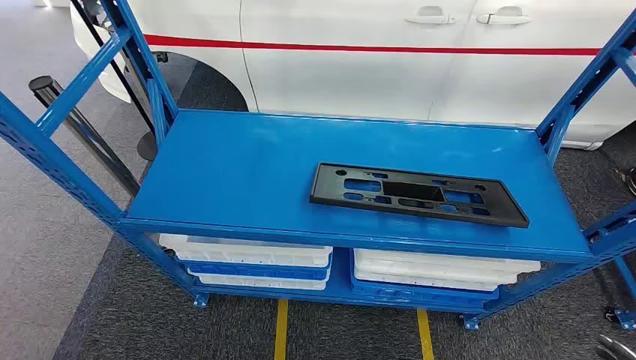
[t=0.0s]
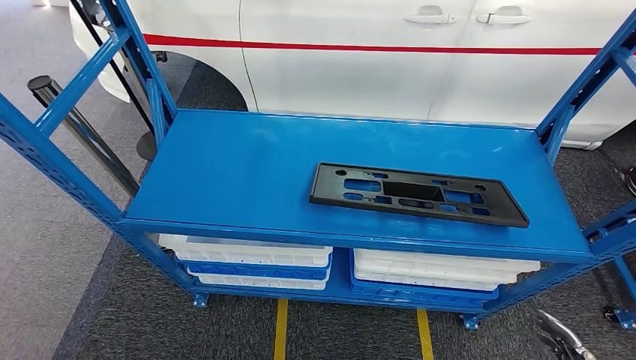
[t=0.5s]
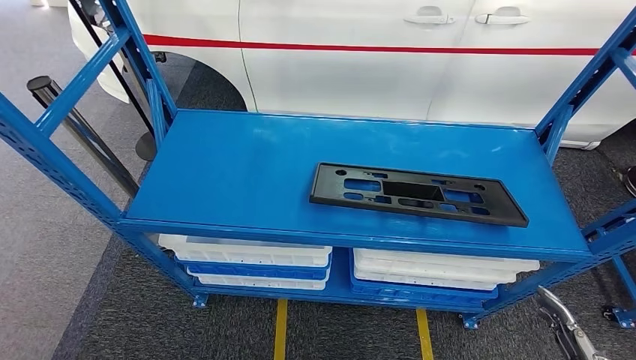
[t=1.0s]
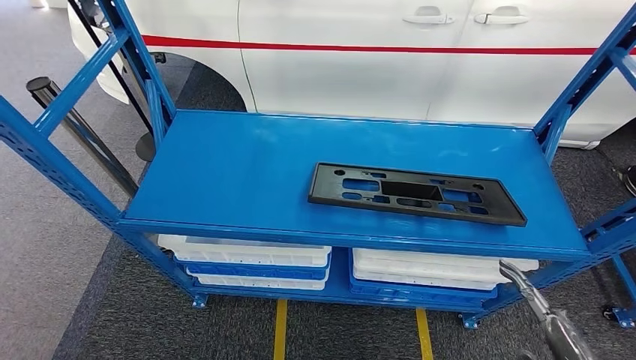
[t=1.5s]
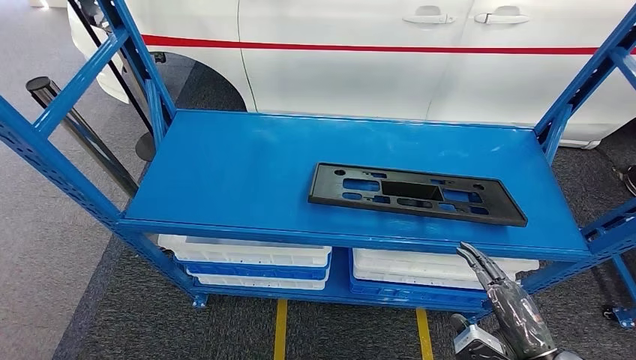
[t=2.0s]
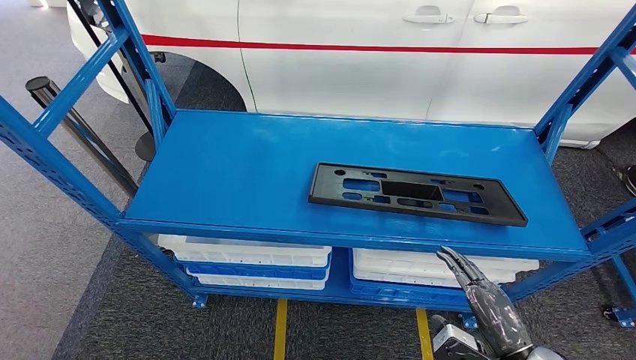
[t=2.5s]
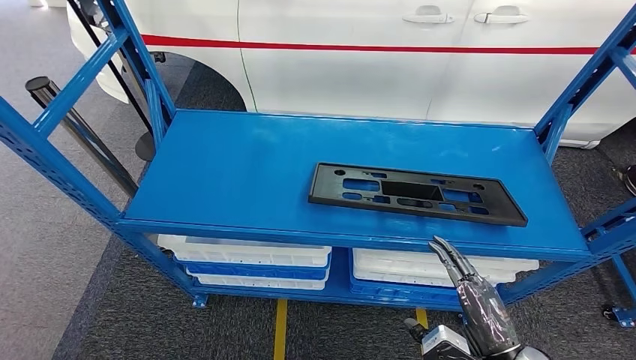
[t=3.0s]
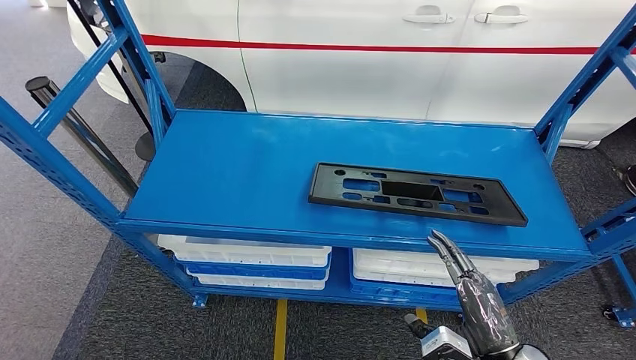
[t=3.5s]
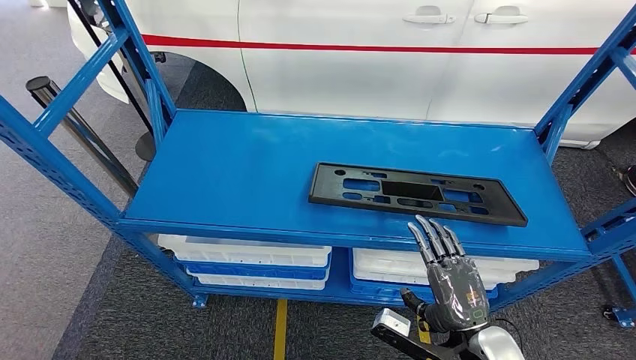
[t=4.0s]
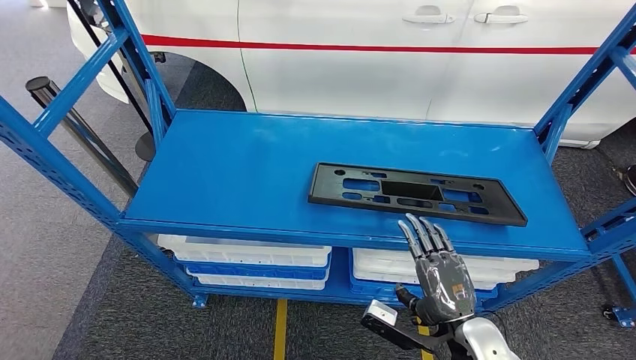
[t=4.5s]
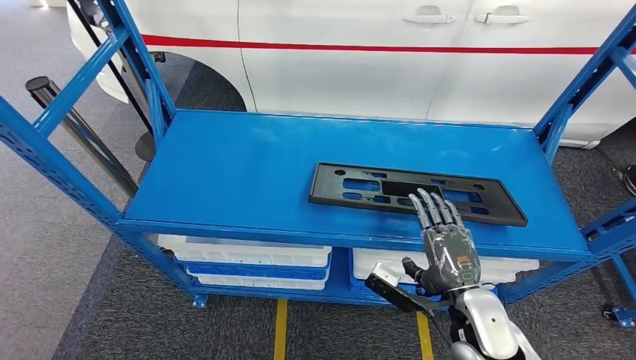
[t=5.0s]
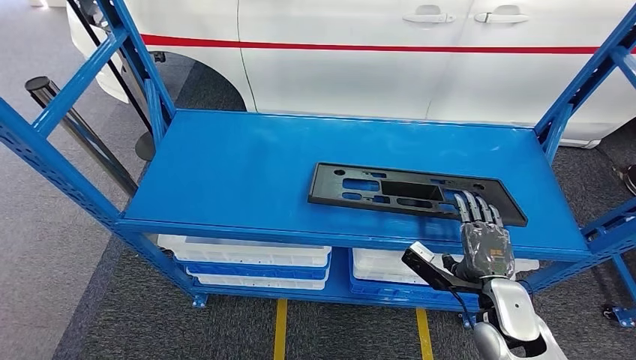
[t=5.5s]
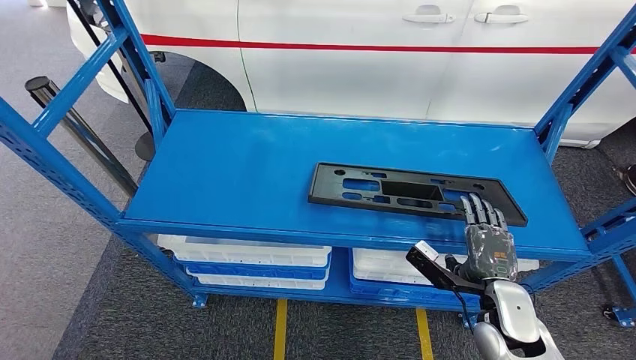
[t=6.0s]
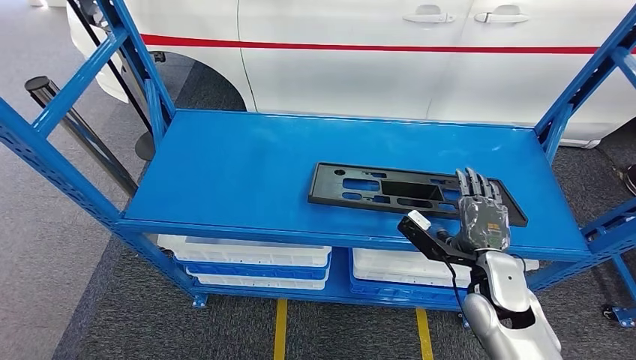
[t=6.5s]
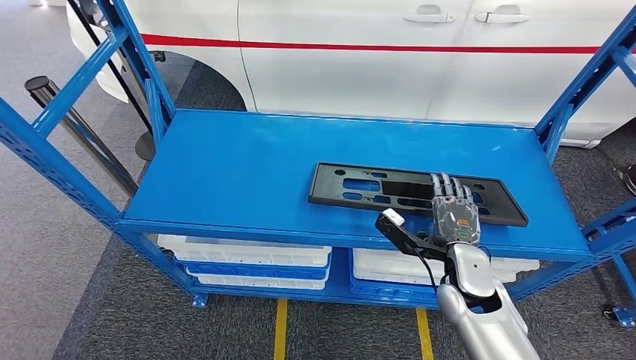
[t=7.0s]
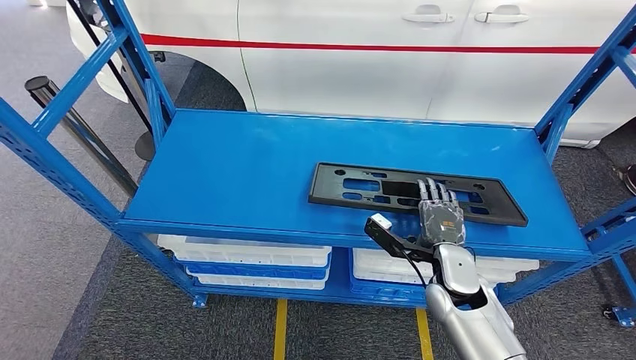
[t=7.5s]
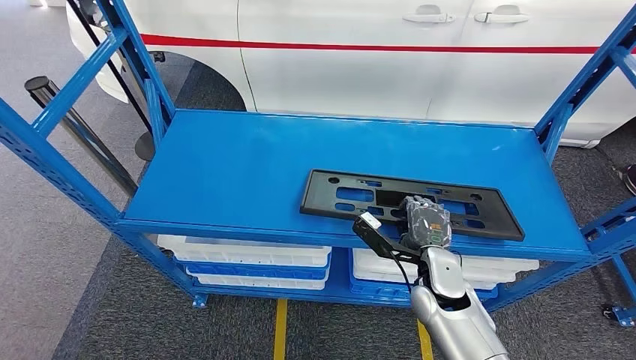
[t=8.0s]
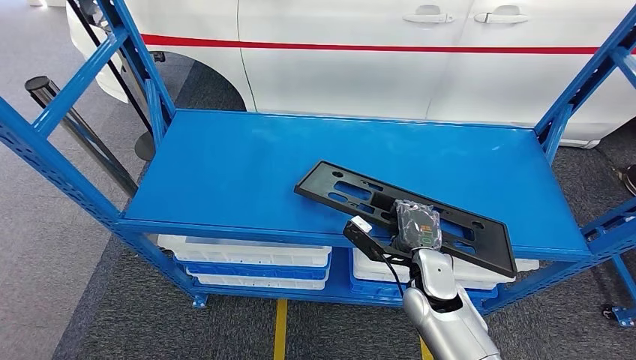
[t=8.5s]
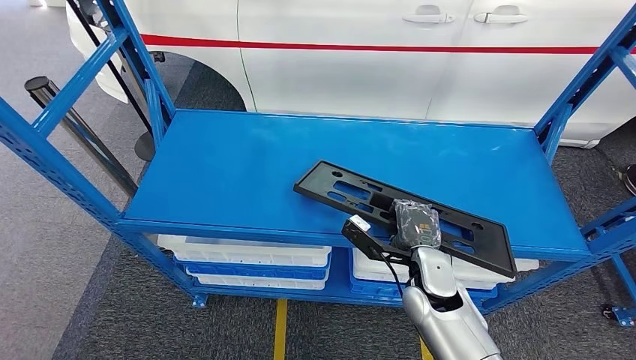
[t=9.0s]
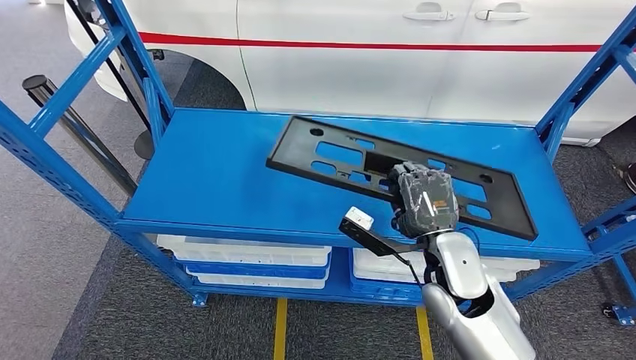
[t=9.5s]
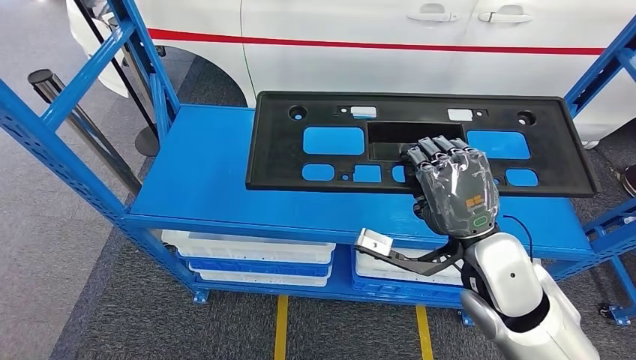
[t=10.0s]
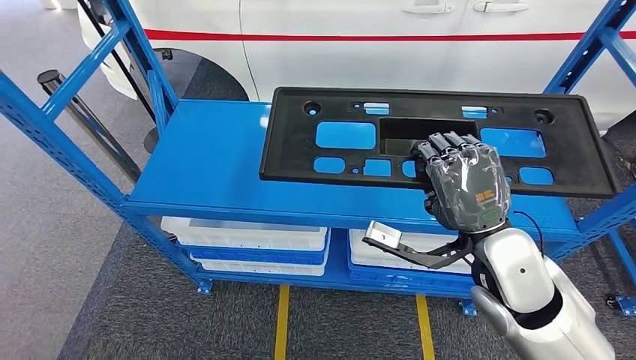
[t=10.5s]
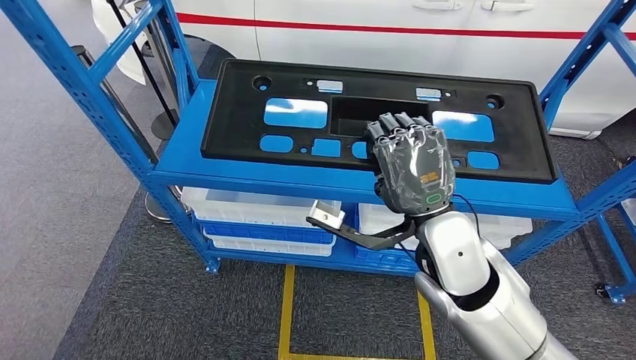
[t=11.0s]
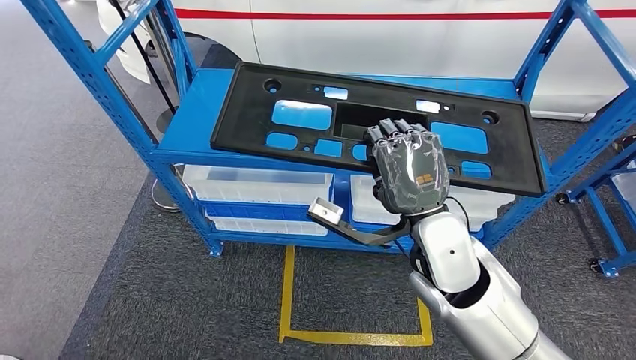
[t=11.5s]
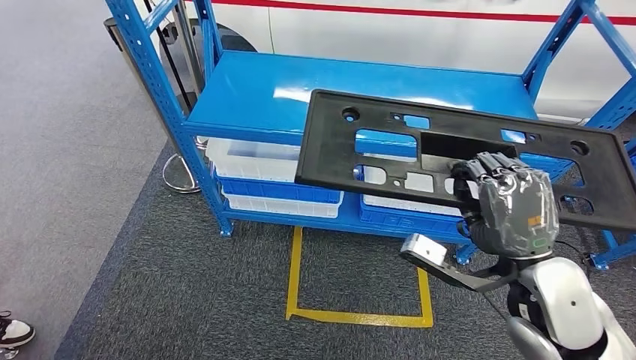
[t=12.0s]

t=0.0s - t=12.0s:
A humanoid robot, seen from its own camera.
Step, t=0.0s - t=10.5s: Pick up the large material from the shelf.
t=2.0s - t=4.0s: The right hand shifts some 10 cm to the left.
t=4.0s - t=6.0s: The right hand shifts some 10 cm forward.
t=6.0s - t=8.0s: The right hand goes some 10 cm to the left.

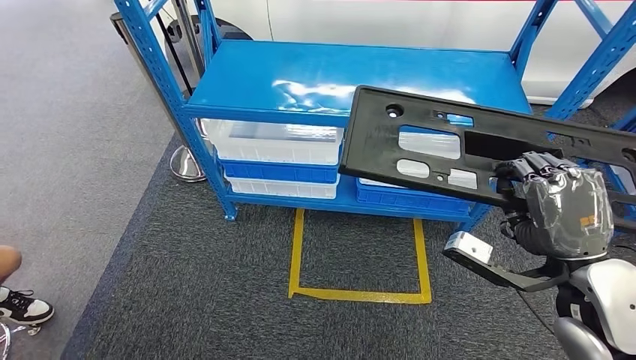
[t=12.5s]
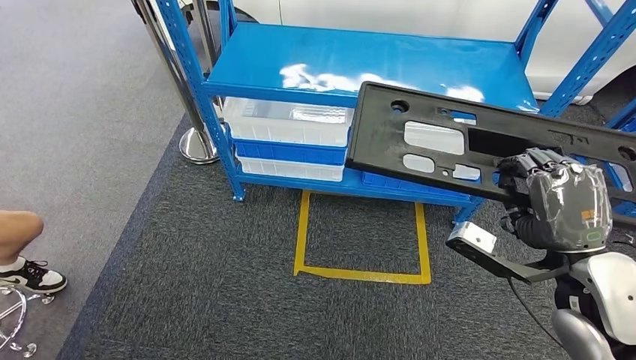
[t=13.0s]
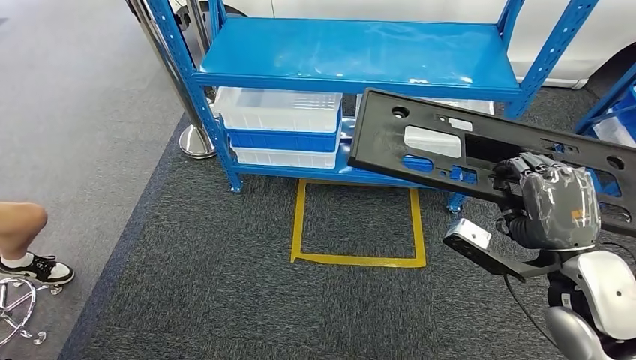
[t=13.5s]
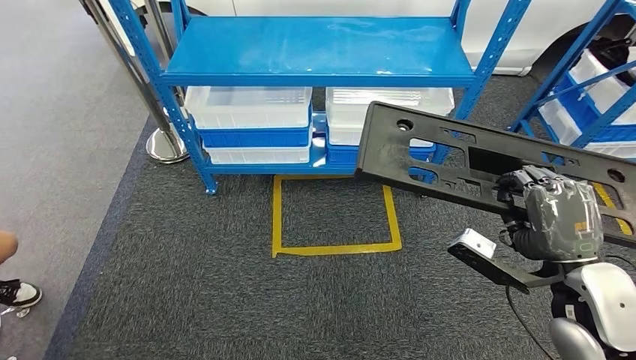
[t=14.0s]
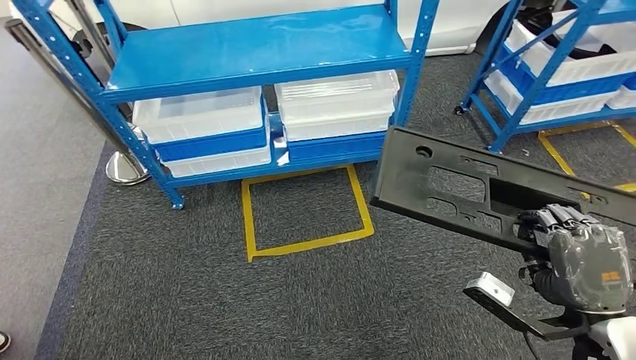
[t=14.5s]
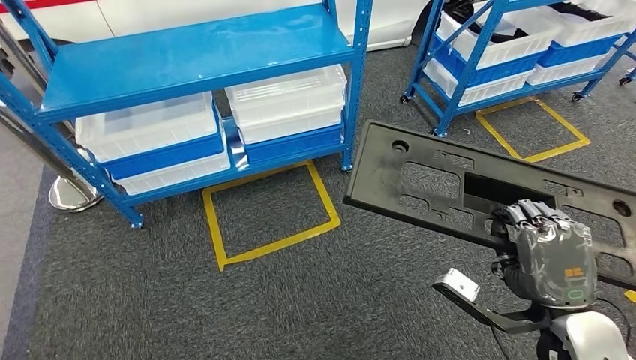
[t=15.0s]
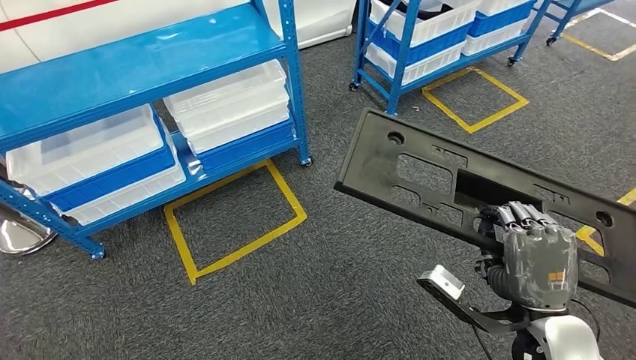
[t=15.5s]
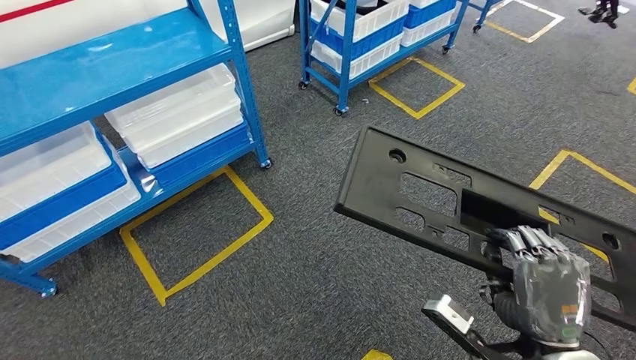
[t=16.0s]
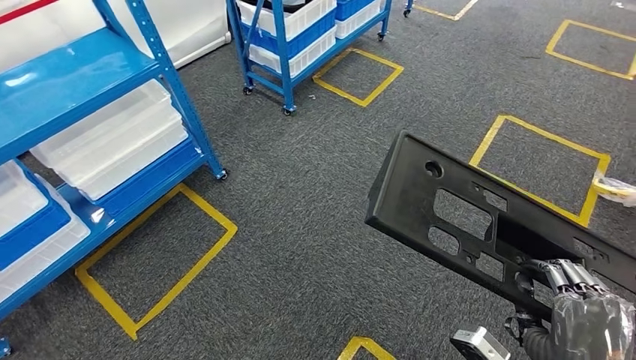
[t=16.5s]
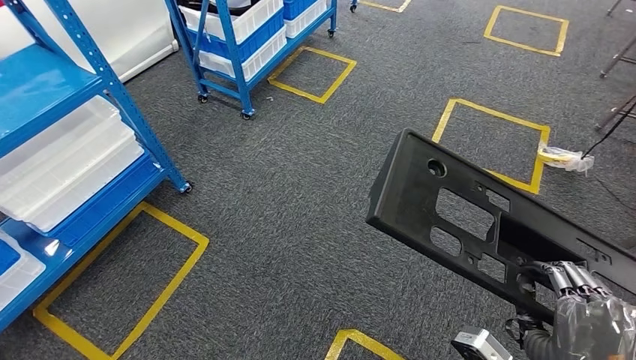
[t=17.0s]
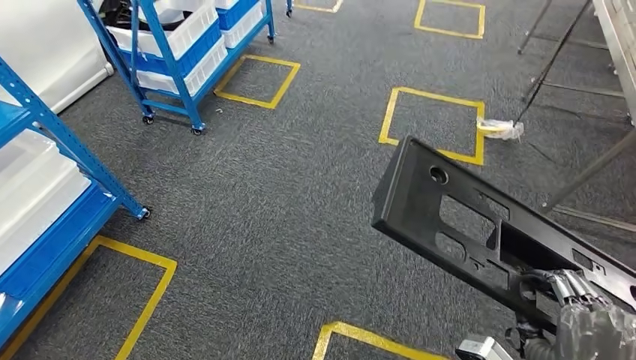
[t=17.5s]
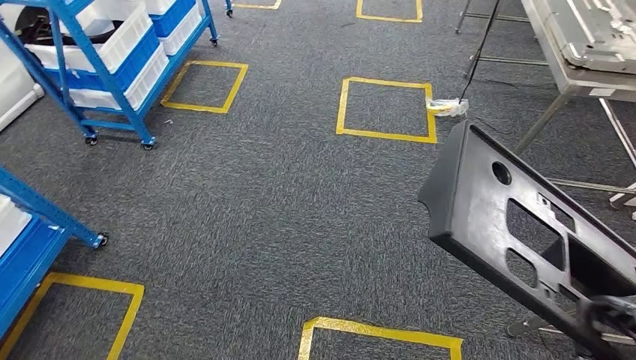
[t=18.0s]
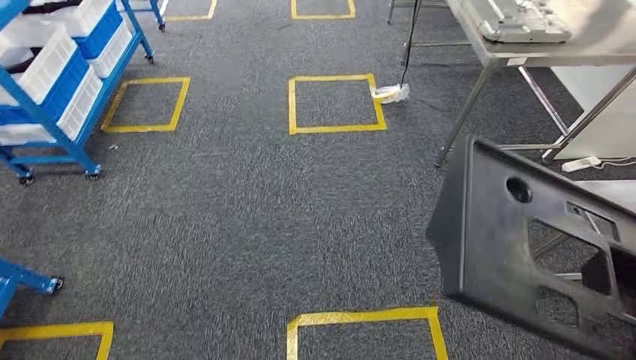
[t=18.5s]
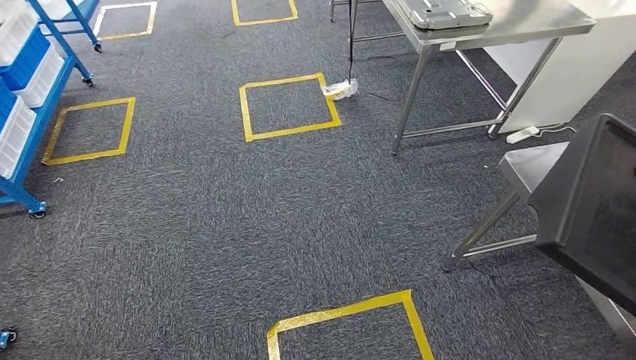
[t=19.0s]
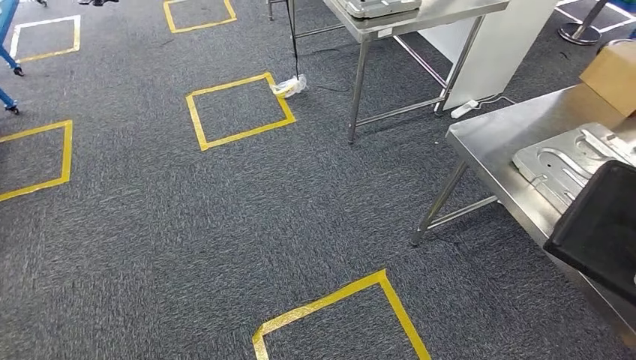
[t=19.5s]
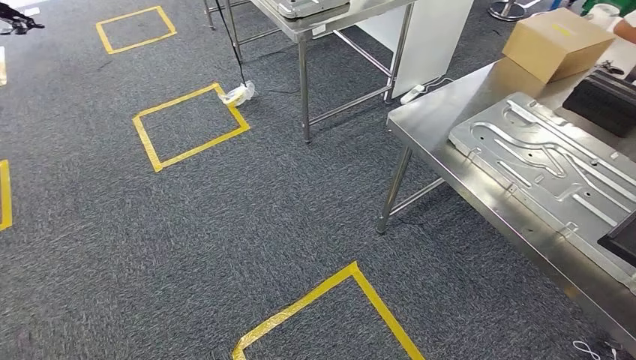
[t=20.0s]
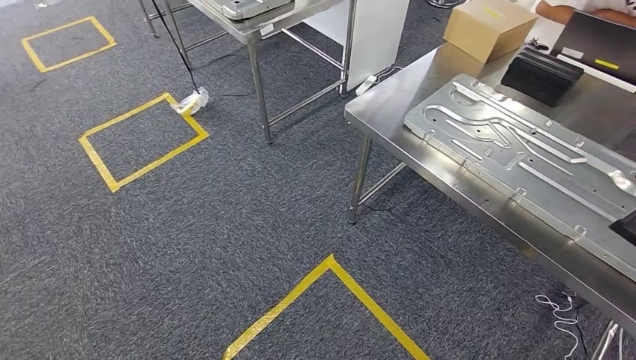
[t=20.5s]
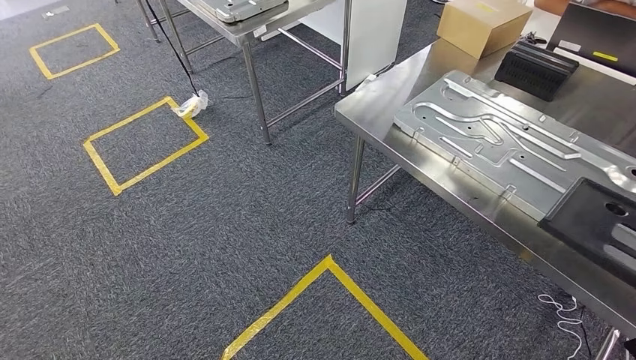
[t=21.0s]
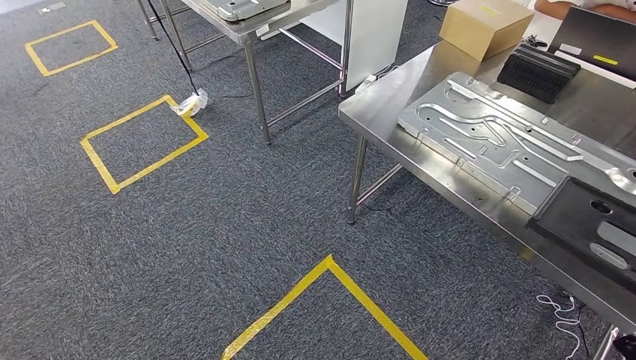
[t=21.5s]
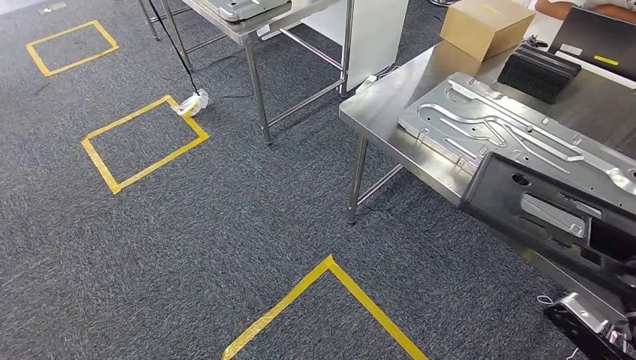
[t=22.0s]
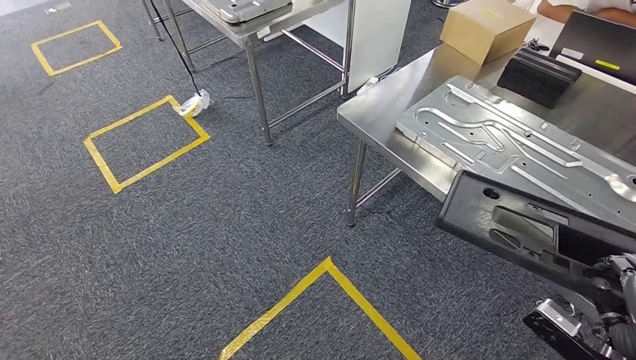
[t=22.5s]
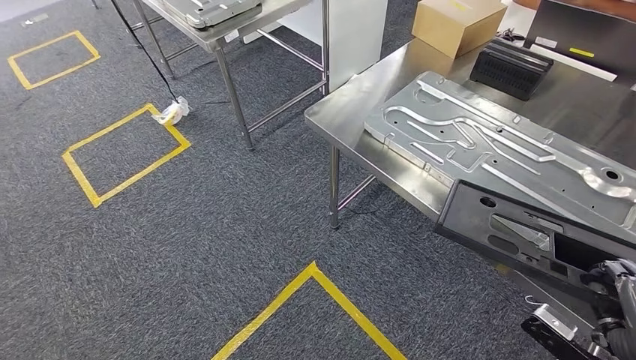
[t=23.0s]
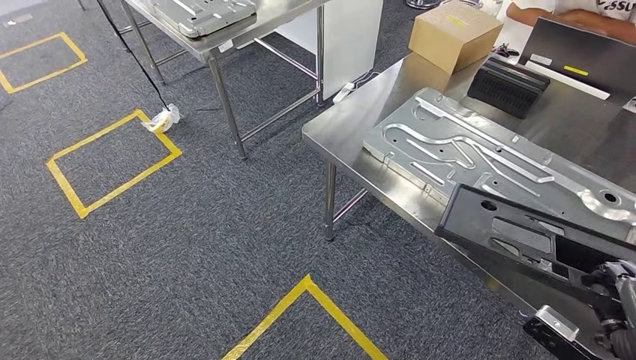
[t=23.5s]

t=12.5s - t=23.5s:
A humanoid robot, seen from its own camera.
Step, t=12.5s - t=19.0s: Move the large material to the workbench.
